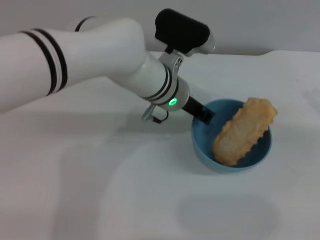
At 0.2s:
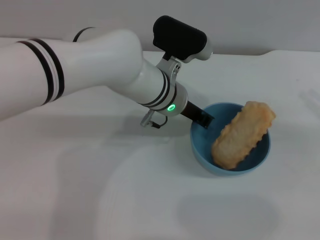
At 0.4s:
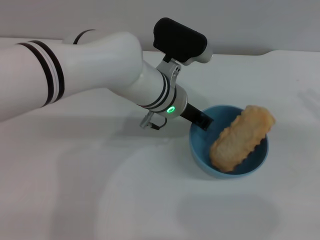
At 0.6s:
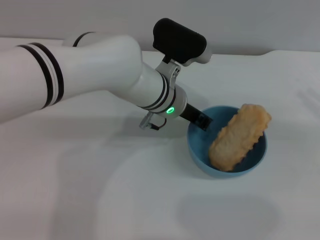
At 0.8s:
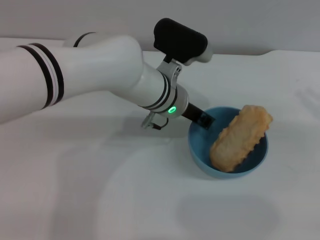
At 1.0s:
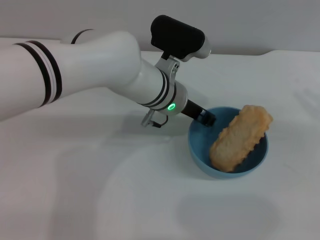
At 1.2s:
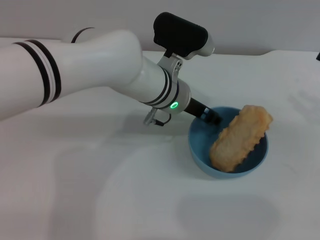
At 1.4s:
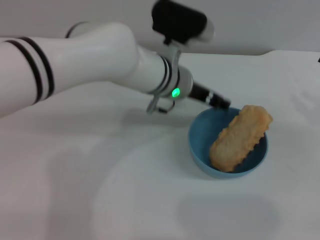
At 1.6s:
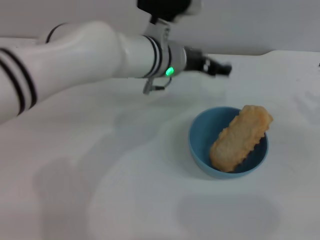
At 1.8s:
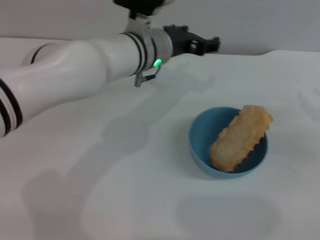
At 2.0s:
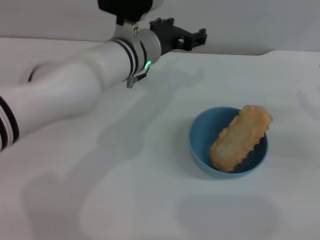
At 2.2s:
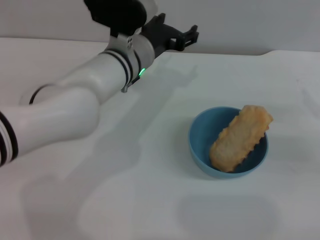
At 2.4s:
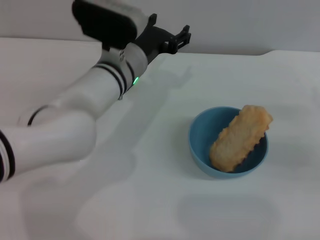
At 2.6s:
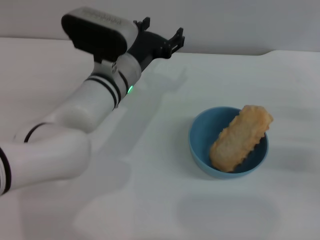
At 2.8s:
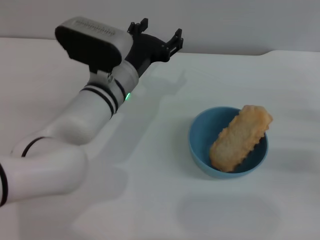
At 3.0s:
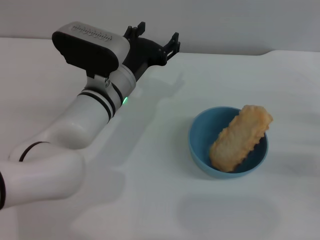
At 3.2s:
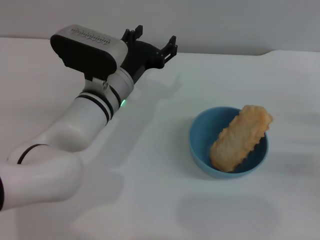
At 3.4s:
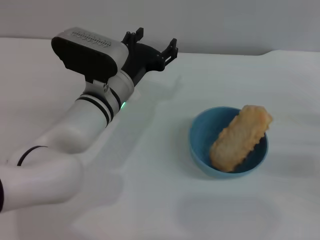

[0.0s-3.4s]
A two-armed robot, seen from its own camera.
Task of the whole recording: put the bread into the blue bowl and pour it out repeatedly.
Step, 0.0s to 1.4s: Pour the bread out of the bowl.
0.0s to 1.6s: The left gripper opens up.
1.6s to 3.4s: The right gripper goes roughly 5 cm downward. Meanwhile the left gripper goes about 10 cm to the left, downward and backward.
